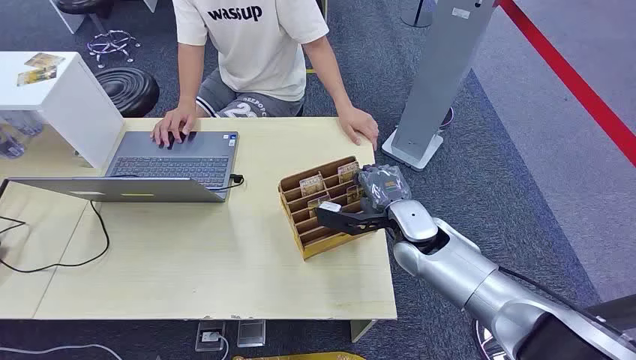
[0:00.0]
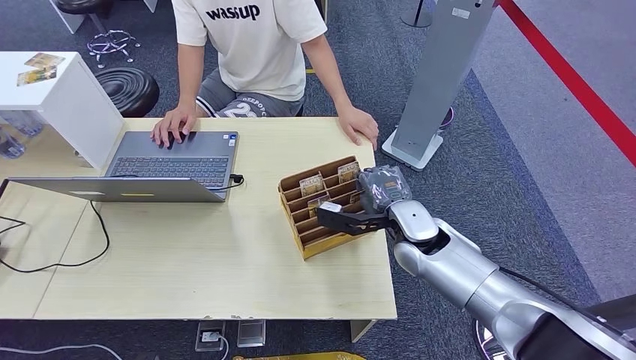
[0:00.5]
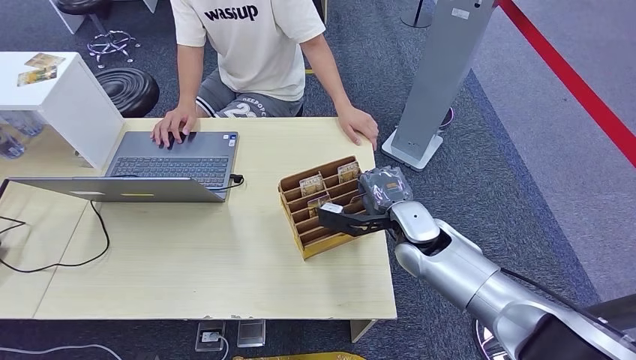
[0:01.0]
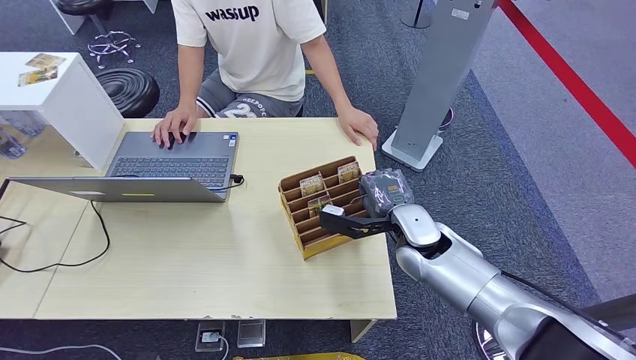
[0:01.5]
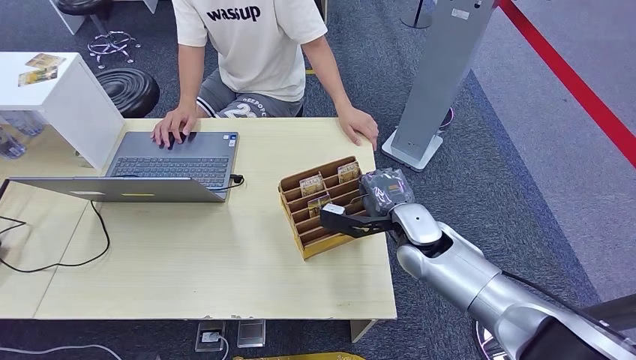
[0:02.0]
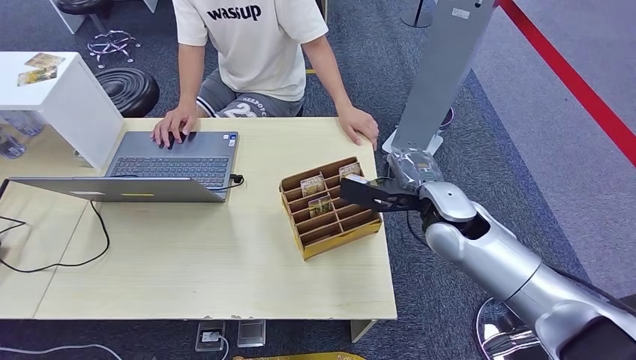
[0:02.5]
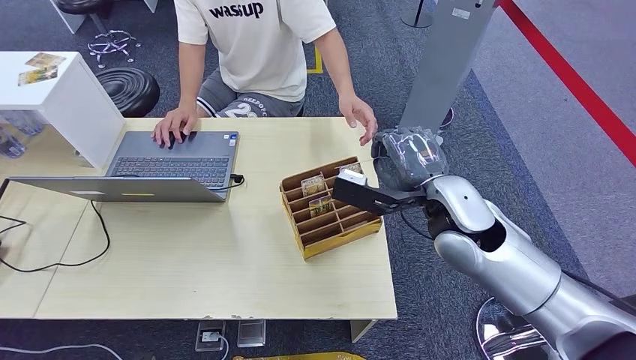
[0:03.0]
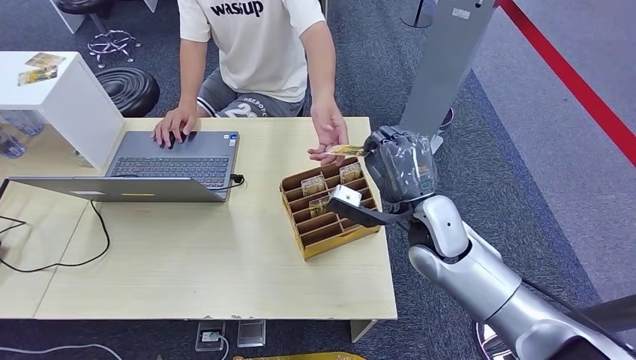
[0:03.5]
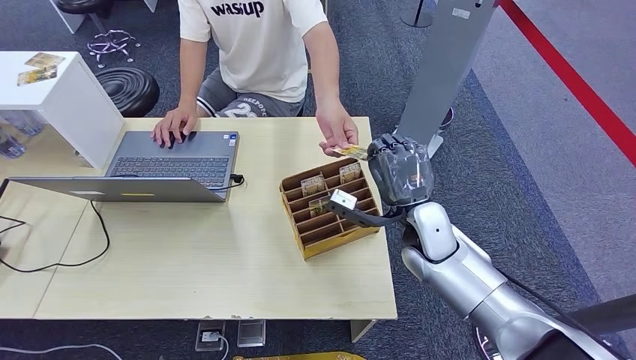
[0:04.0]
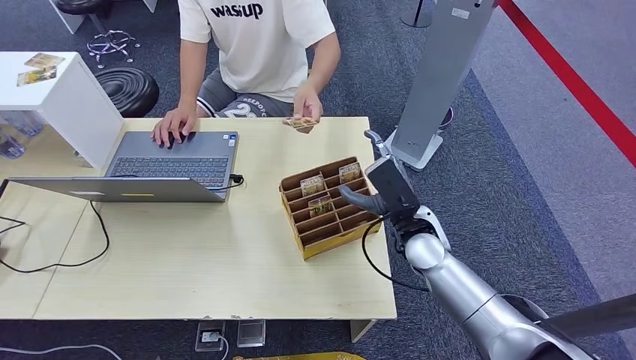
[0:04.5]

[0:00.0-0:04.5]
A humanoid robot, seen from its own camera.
Step, 0:00.0 to 0:02.5: Pick up the key card from the card box.
Step, 0:03.0 to 0:04.0: Hand the key card to the target.
0:02.0 to 0:04.5: The right hand moves some 10 cm upward and comes back.
